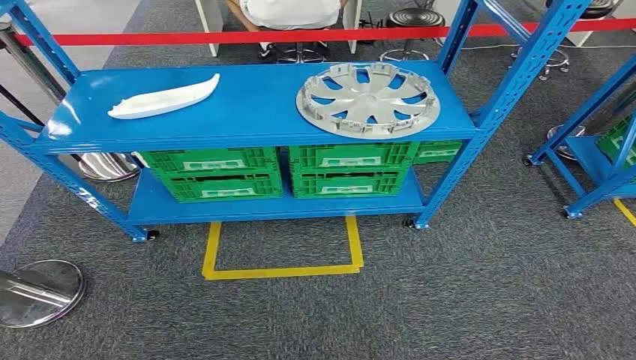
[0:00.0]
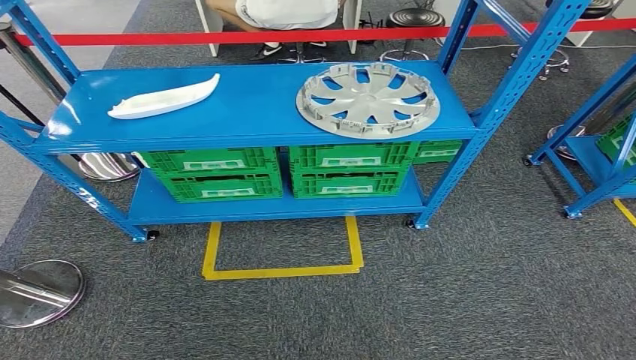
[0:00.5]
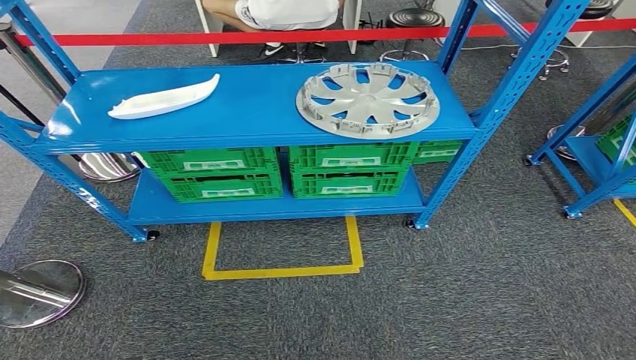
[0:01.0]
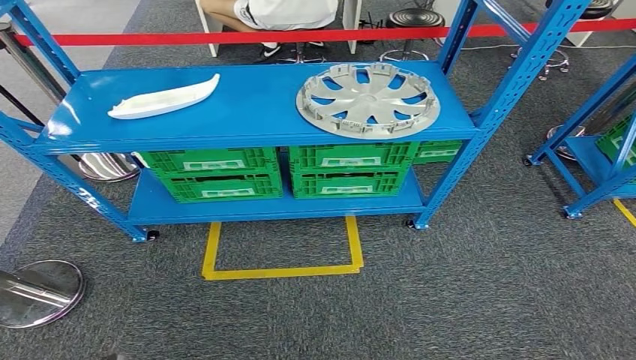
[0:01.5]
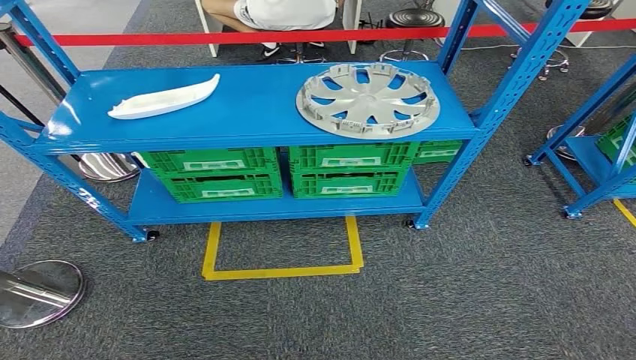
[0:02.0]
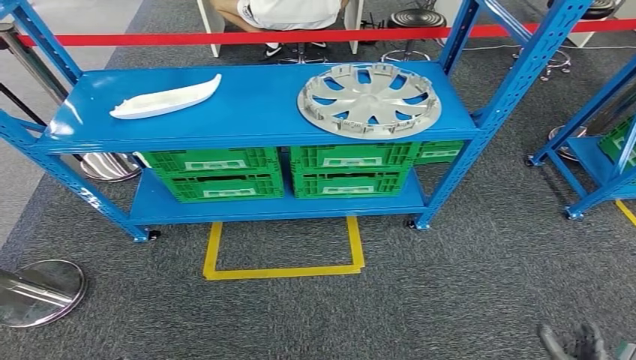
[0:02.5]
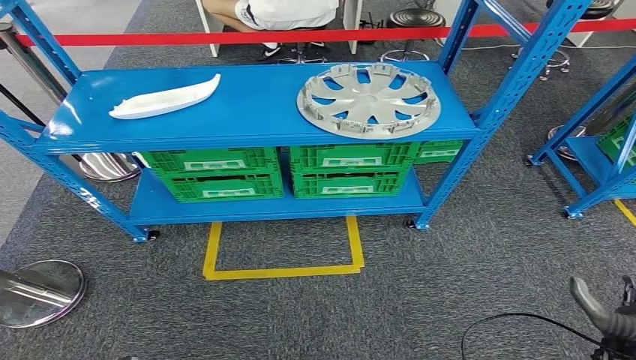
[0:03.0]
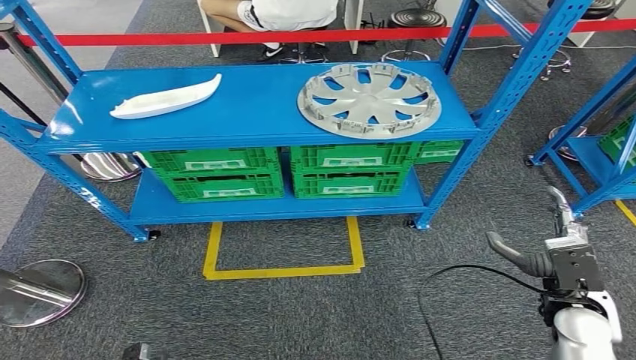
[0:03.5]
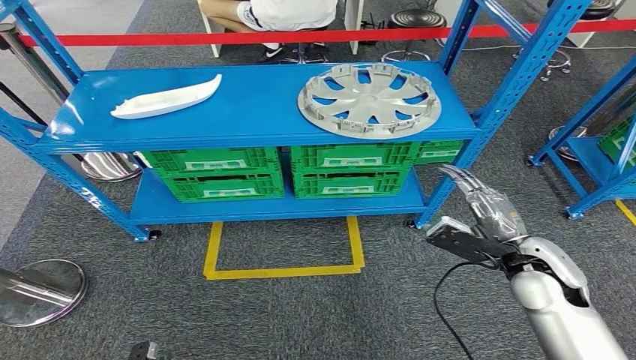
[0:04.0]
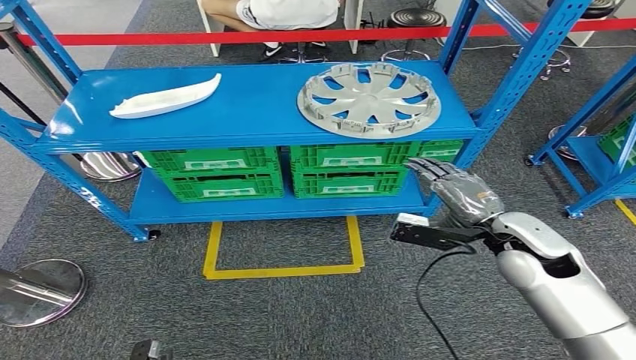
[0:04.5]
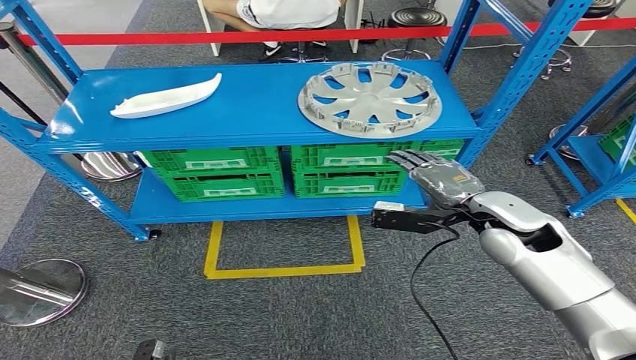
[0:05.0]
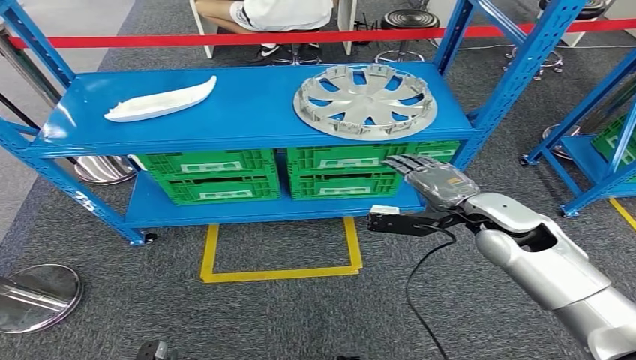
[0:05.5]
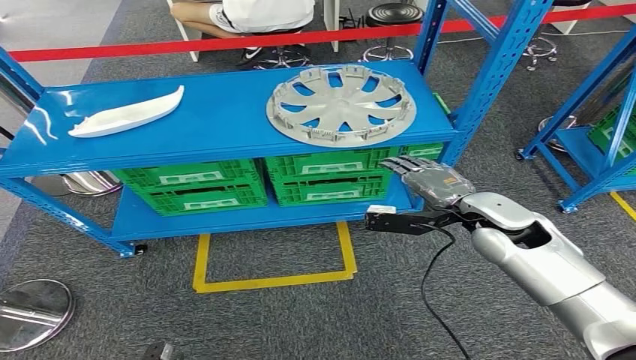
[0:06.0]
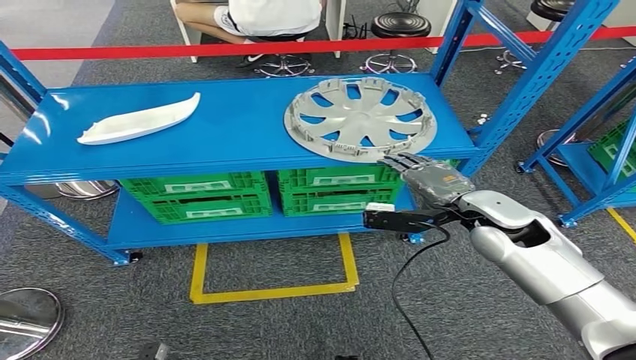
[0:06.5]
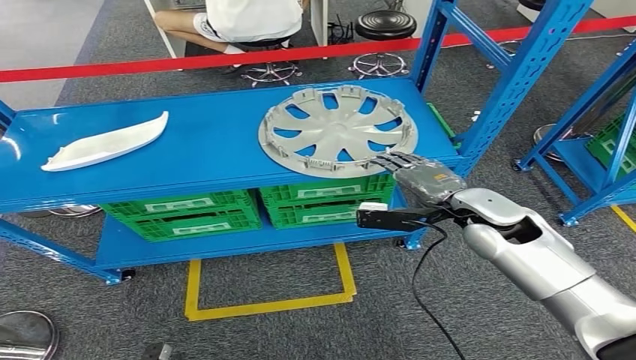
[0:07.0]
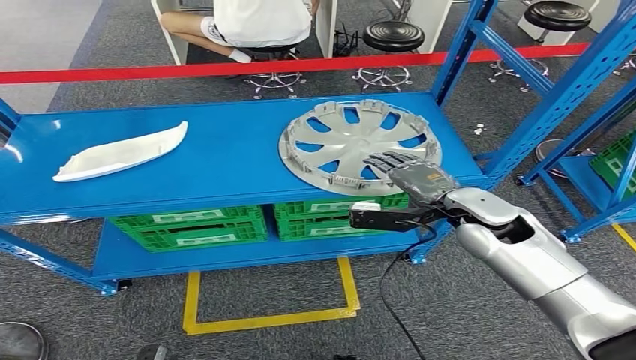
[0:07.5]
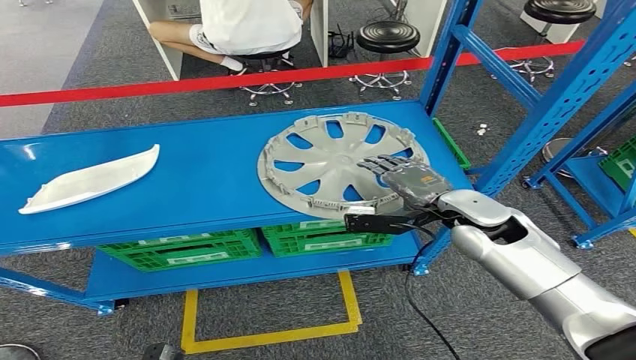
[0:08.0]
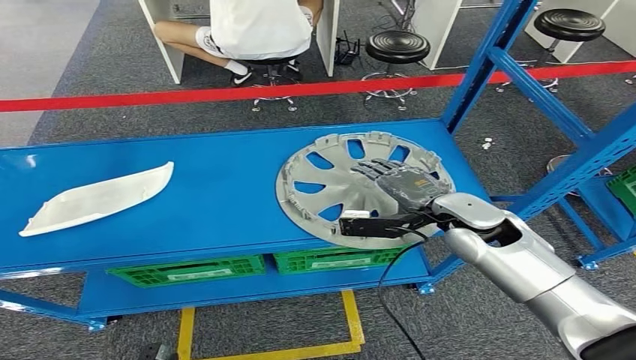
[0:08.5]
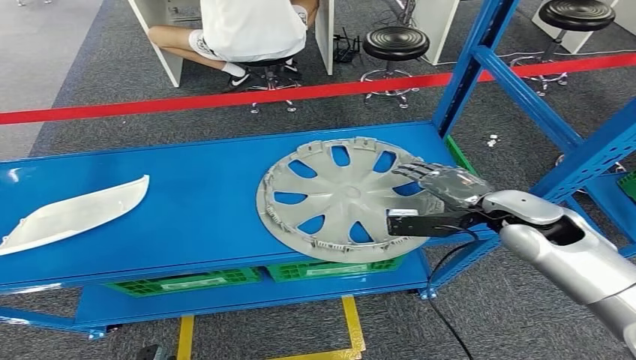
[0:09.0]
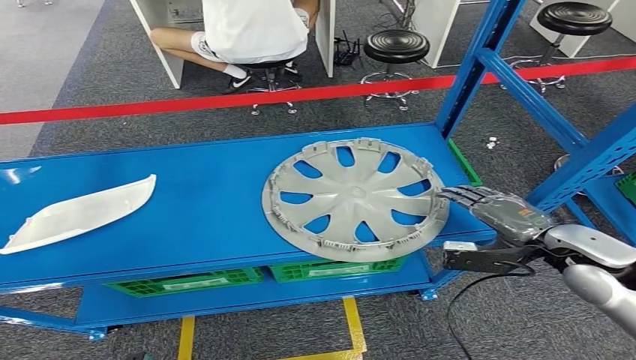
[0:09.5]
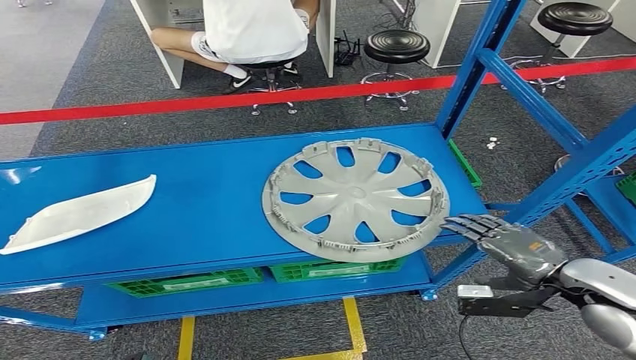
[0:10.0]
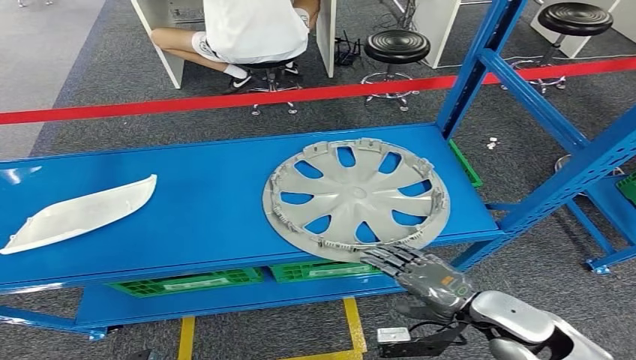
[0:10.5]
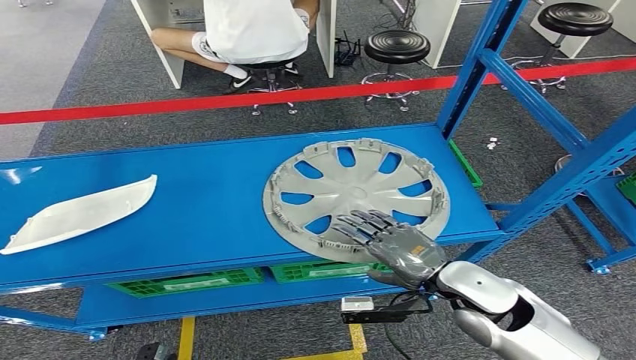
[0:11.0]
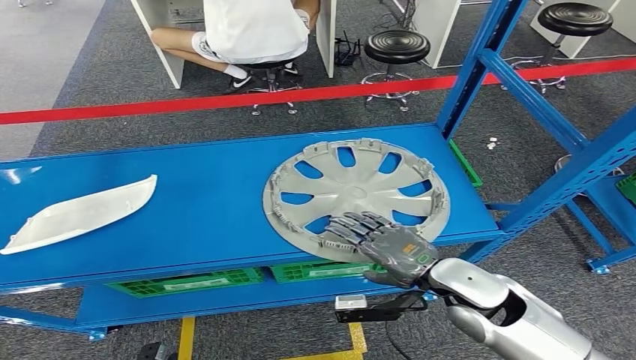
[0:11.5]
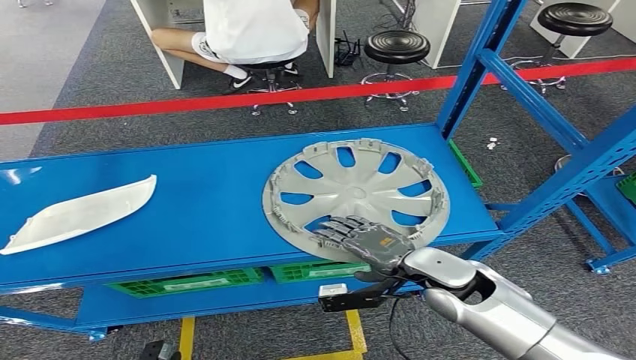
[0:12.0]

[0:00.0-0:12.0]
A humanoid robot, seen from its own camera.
0:02.0 to 0:04.0: The right hand shifts about 40 cm upward and forward.
0:10.0 to 0:12.0: The right hand shifts approximately 20 cm to the left.

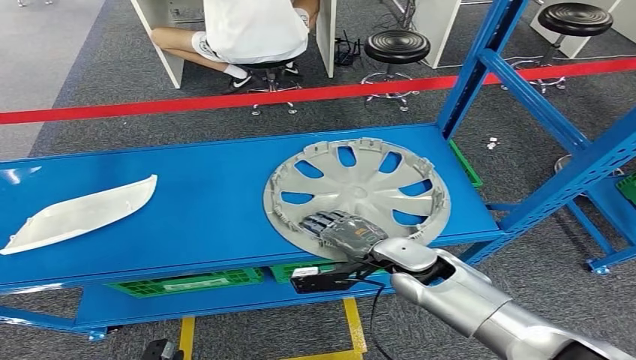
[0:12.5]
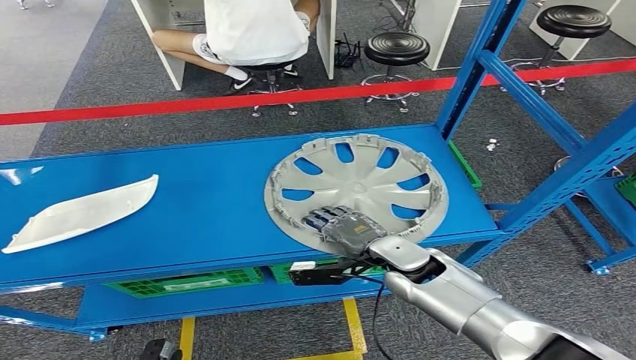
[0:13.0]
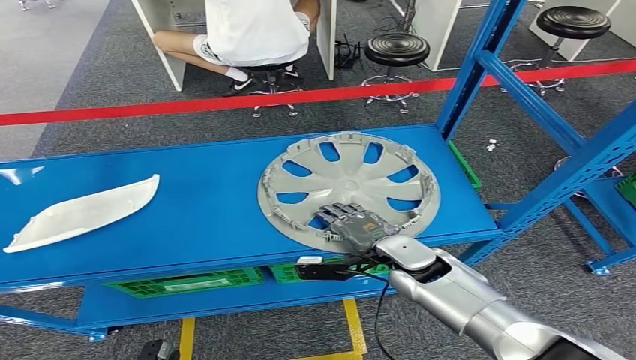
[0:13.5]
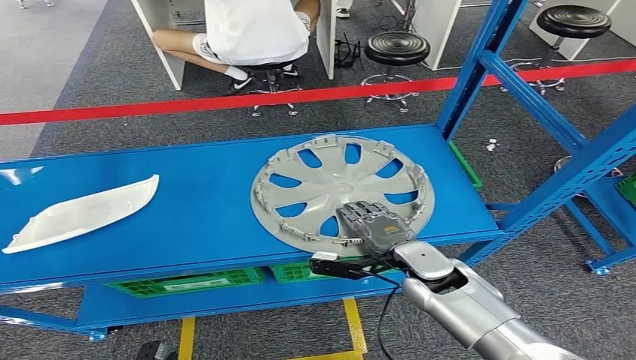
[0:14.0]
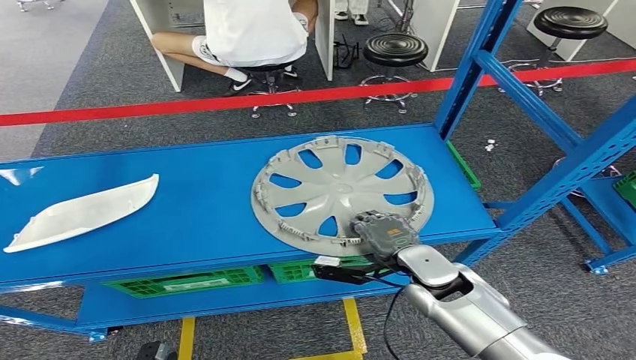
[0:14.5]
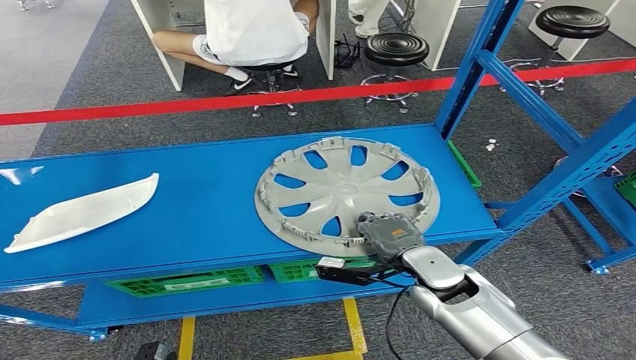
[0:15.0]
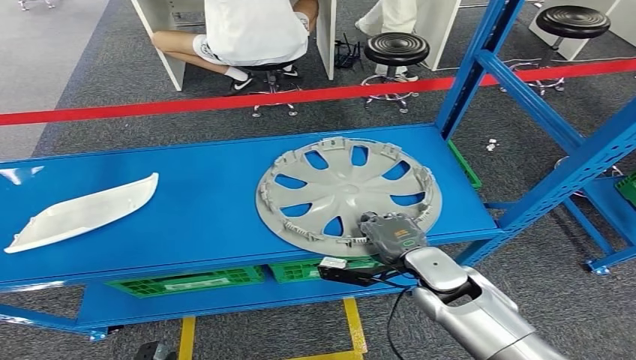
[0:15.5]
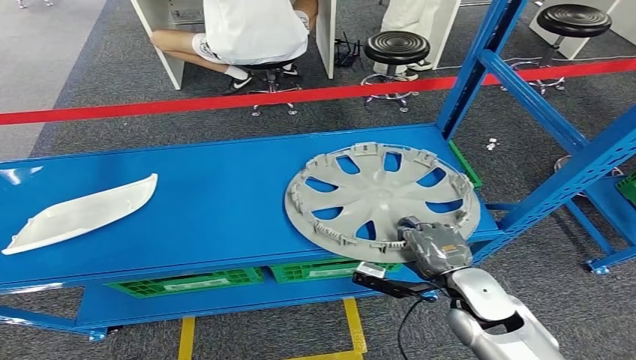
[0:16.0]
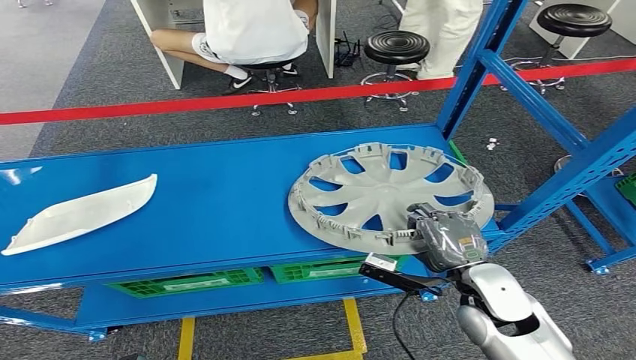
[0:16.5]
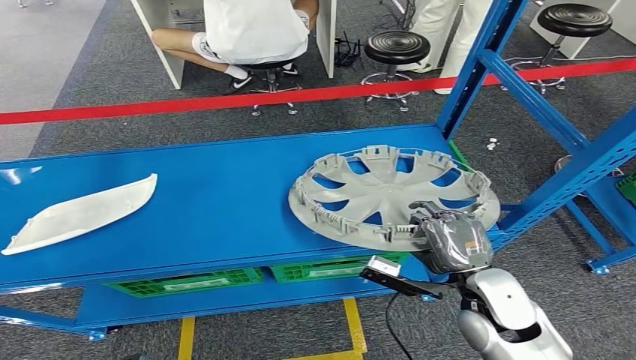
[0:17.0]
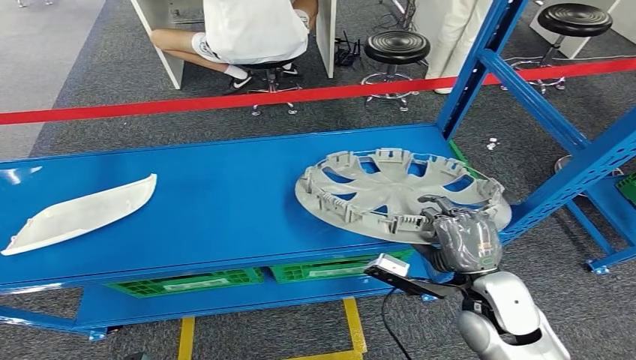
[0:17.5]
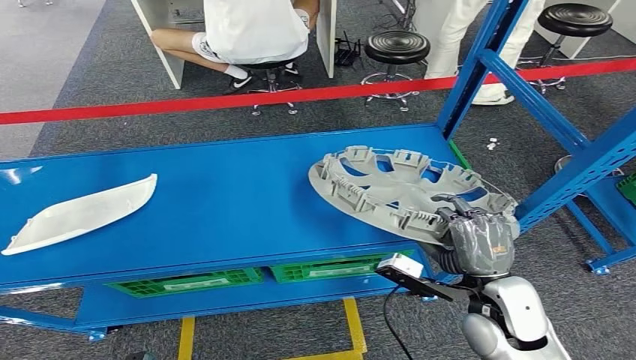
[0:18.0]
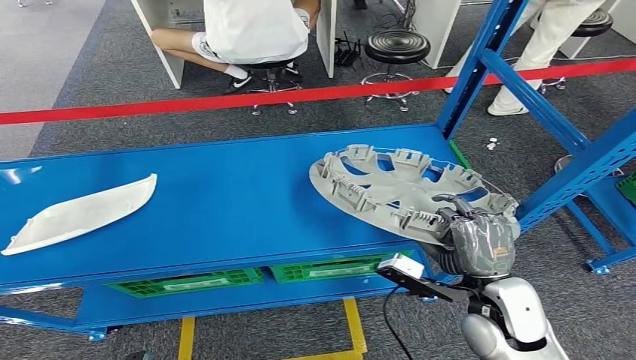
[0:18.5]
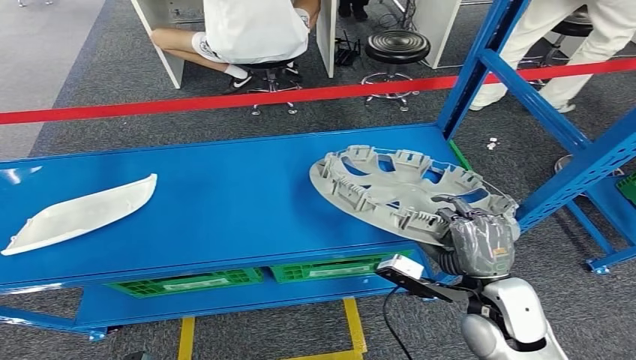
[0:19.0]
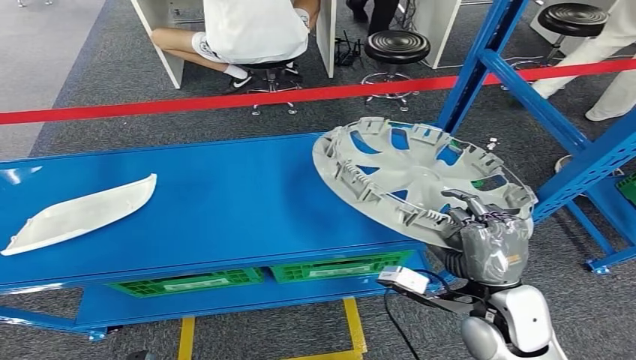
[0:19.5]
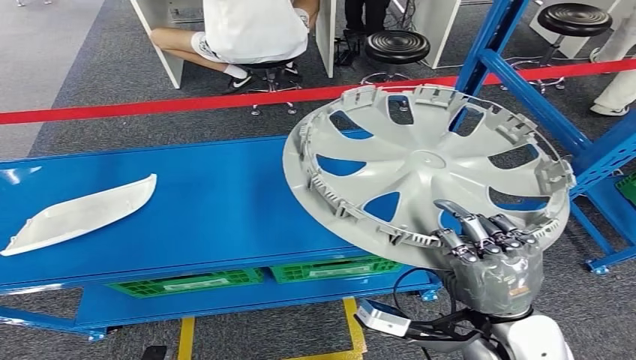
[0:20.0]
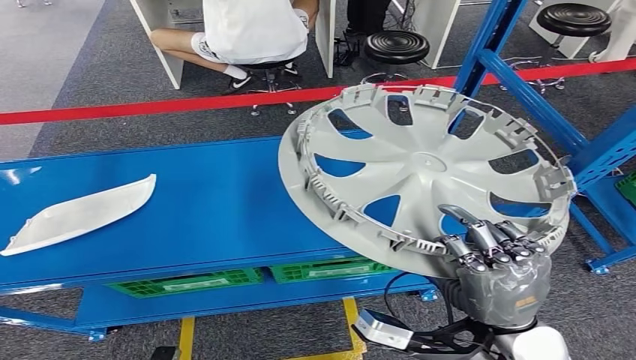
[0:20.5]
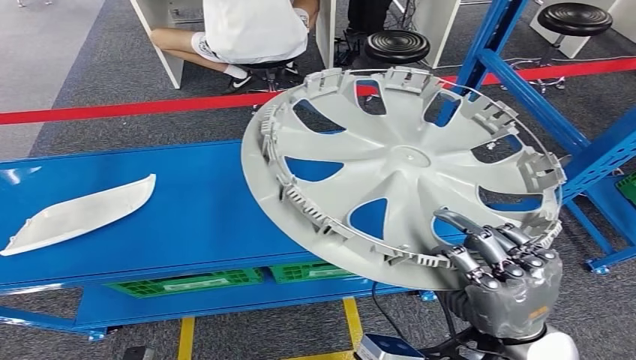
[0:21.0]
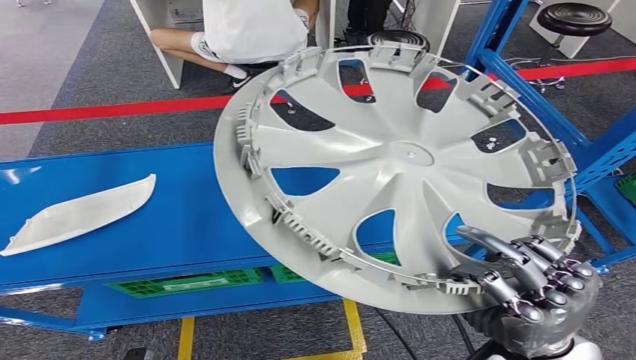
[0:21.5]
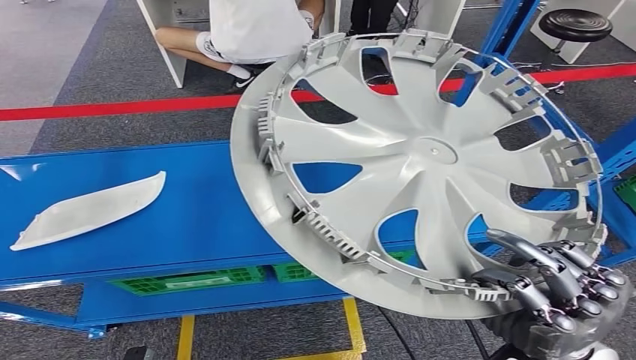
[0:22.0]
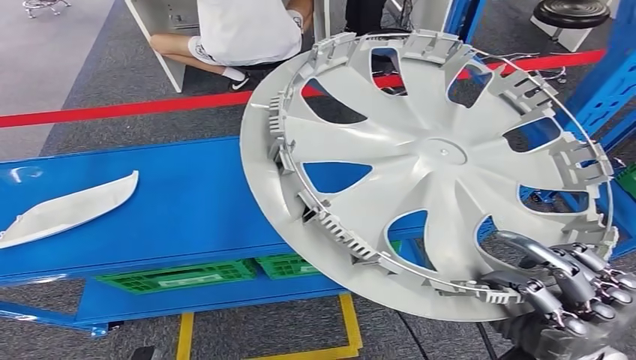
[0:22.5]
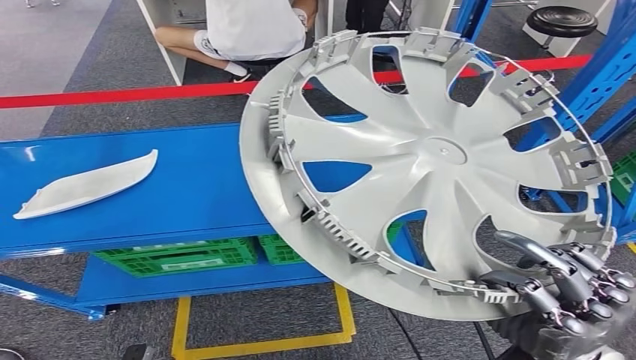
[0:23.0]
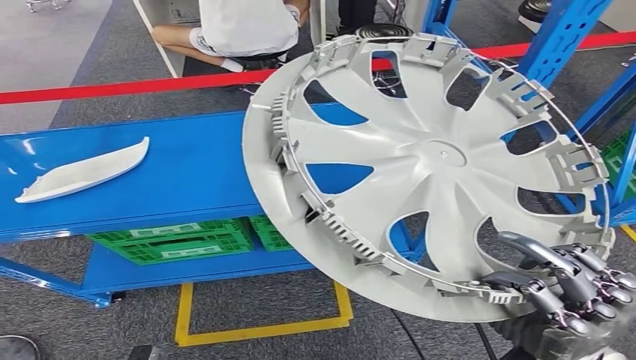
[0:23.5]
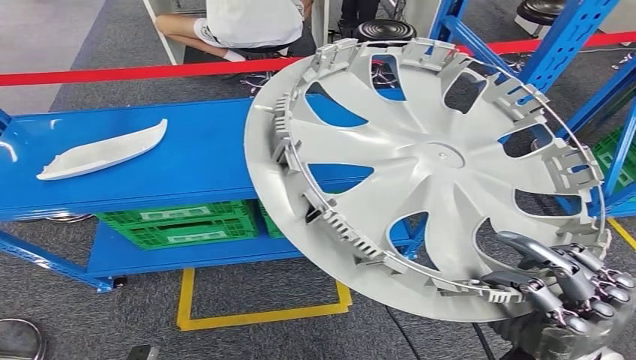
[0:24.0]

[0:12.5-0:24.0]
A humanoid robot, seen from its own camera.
Step, 0:12.5 to 0:21.0: Pick up the small component from the shelf.
